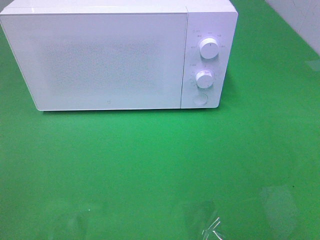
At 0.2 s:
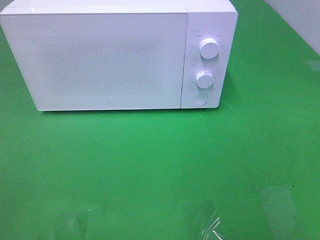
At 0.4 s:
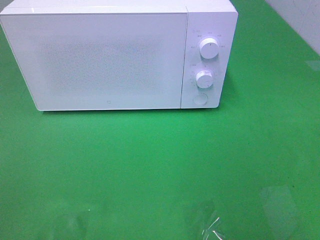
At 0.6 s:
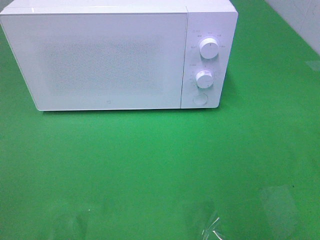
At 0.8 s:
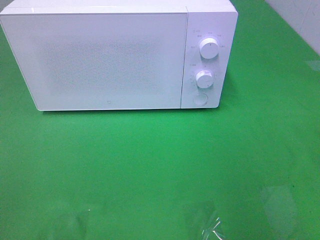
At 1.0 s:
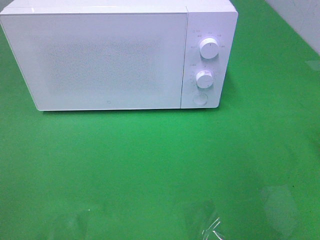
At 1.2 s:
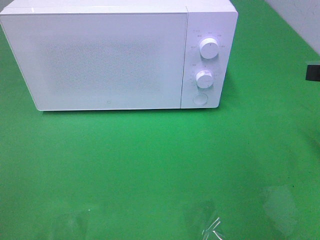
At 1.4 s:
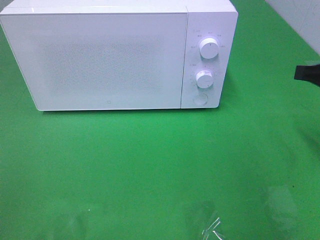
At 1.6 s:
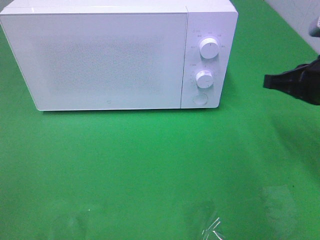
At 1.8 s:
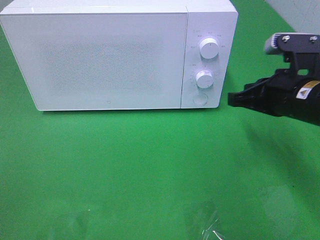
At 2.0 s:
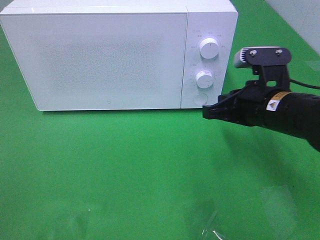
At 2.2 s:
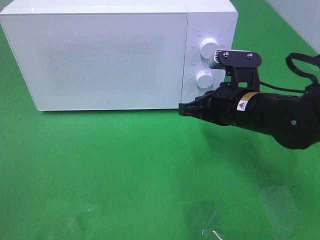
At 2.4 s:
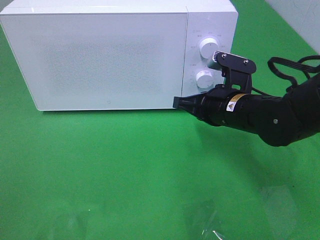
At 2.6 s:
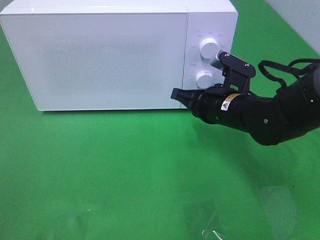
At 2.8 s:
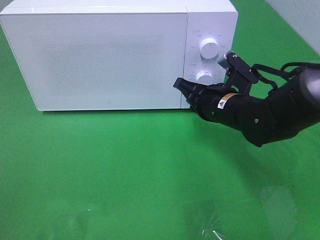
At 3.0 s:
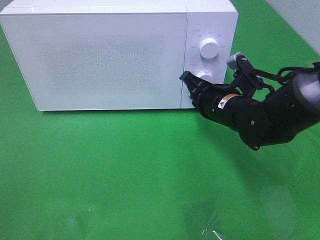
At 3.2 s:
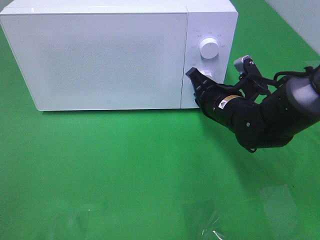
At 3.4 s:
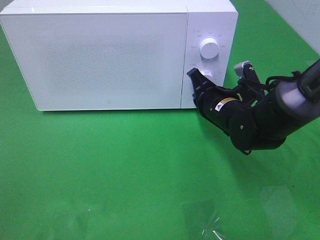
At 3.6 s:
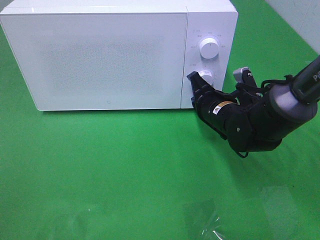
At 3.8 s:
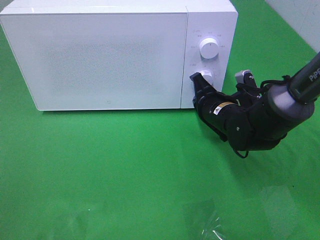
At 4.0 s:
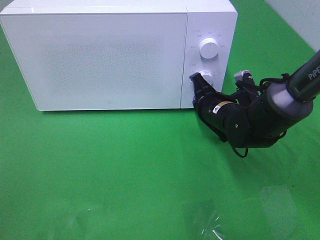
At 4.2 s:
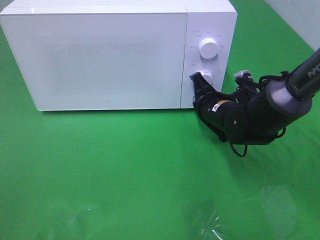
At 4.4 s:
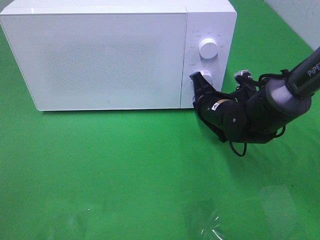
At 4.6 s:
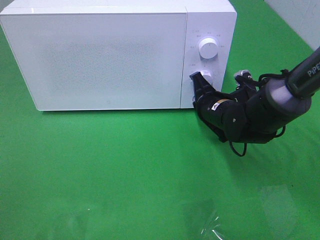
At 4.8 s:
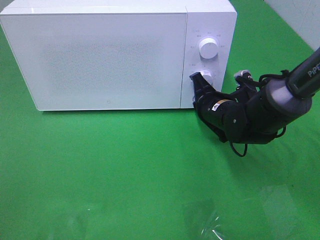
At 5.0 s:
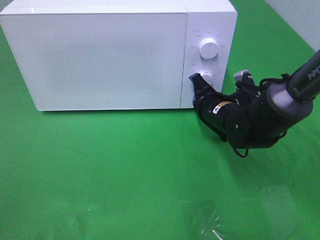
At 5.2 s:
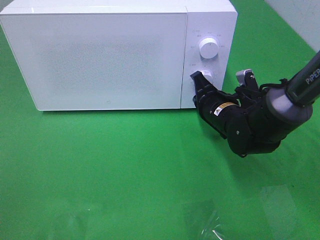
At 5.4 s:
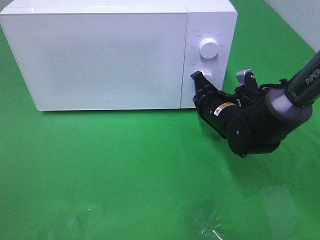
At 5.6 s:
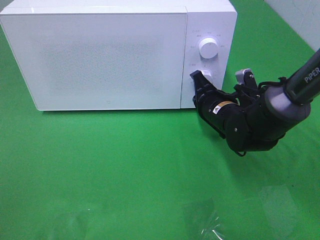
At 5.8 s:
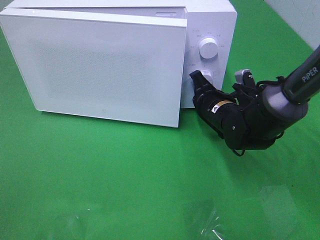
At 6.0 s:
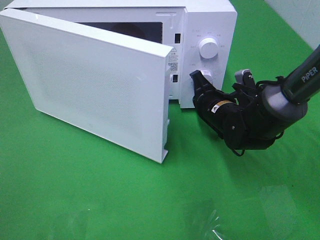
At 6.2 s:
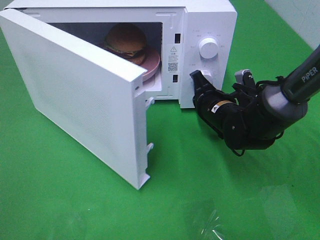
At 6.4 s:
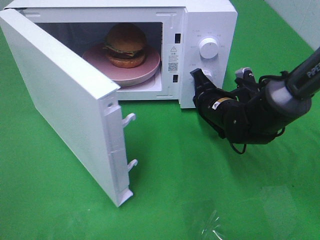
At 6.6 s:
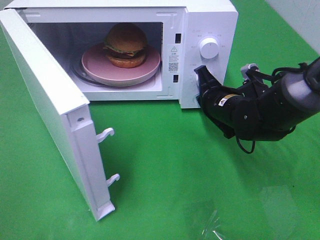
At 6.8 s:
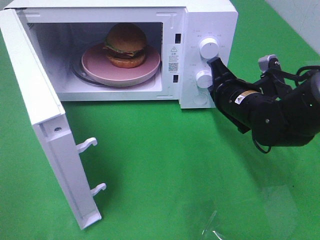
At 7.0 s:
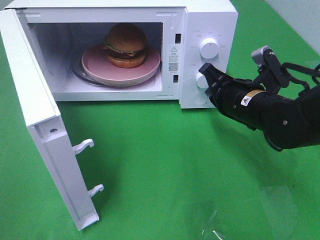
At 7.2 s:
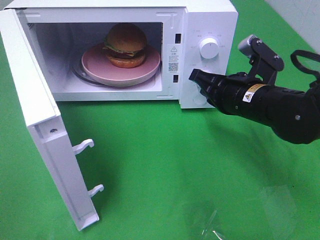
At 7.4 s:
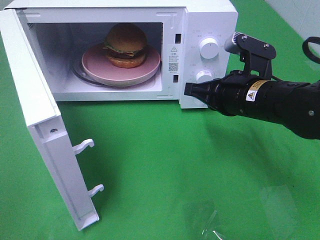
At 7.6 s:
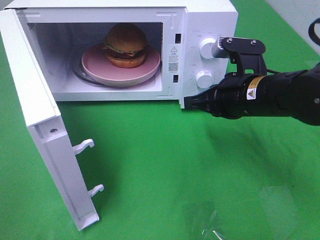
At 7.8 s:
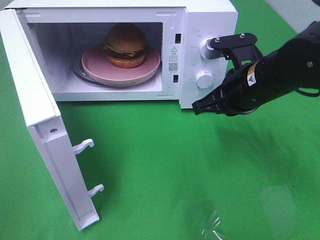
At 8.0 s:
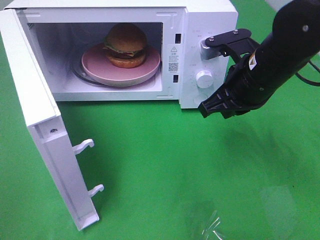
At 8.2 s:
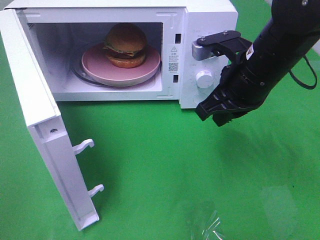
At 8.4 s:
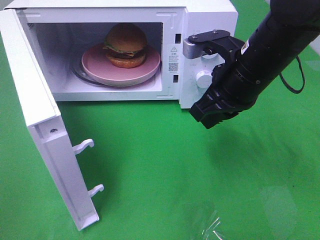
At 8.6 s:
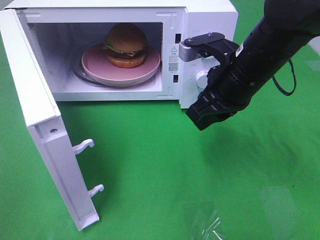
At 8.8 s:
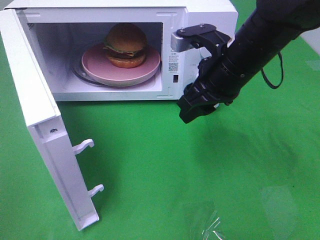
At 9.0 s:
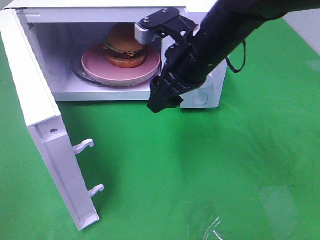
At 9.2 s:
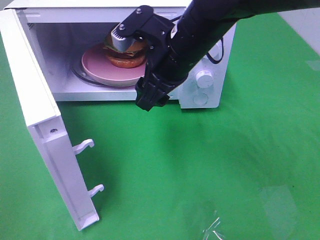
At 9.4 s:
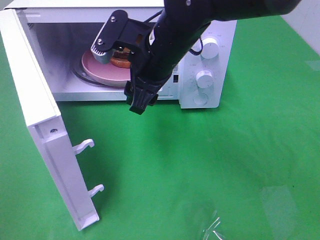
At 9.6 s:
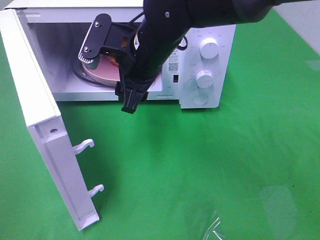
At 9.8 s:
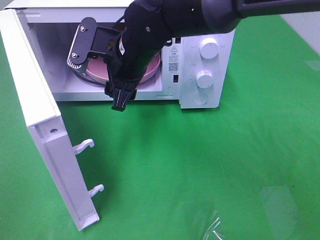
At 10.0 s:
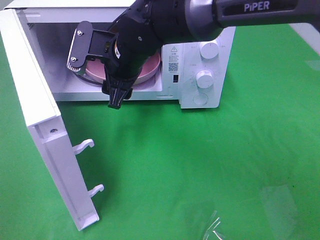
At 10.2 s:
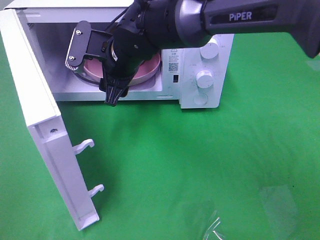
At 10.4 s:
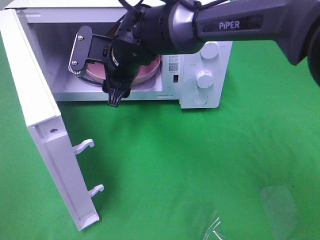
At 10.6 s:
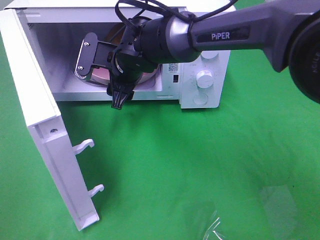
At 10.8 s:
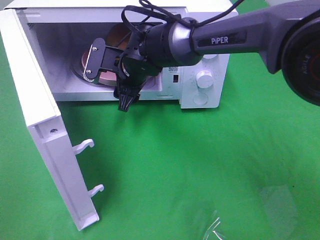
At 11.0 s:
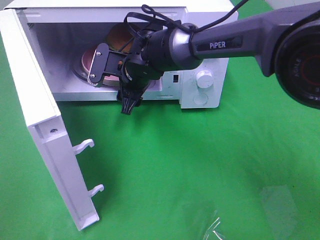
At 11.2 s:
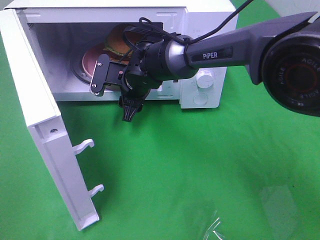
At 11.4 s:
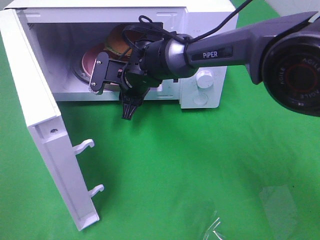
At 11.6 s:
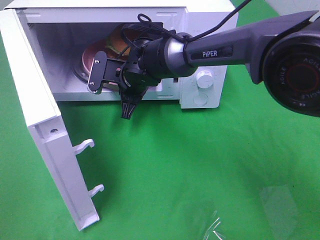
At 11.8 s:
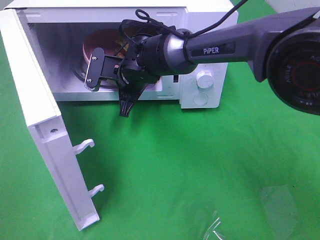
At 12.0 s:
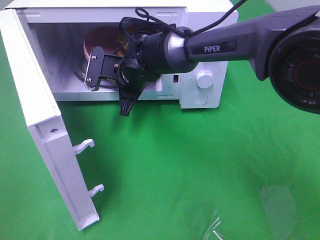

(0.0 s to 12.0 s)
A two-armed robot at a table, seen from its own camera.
Task of the whole recording: Heat the burger.
Step, 0.0 s - 7.4 s: Right hand: press the switch.
0.0 s - 1.6 s: The right gripper travels forward and downward by approximately 25 cm, and closes its fingers.
1.6 s - 3.0 s: The right gripper goes about 15 cm to the left, downward and forward.
4.4 s - 6.0 s: The grippers move only a little.
6.0 s - 7.6 s: The right gripper heads upward and backward, covering roughly 10 cm.
7.6 s - 9.0 s: The right gripper travels to the left and upward by about 10 cm, and opens.
9.0 s - 10.4 s: The right gripper shifts about 15 cm to the left, forward and downward.
10.4 s - 12.0 s: The right gripper changes place by approximately 5 cm, and closes.

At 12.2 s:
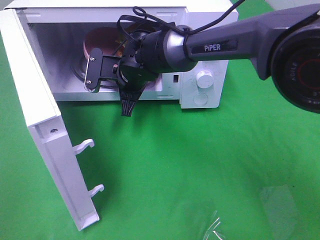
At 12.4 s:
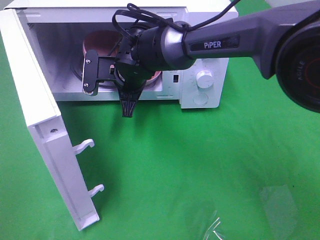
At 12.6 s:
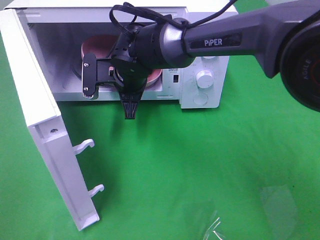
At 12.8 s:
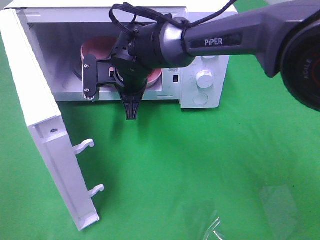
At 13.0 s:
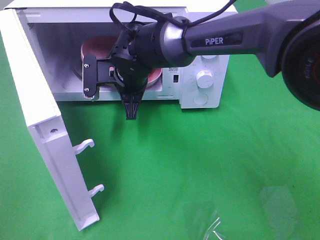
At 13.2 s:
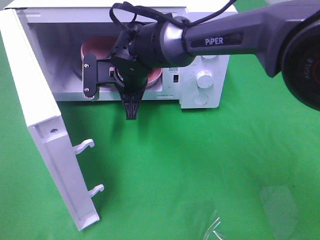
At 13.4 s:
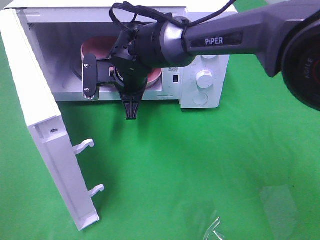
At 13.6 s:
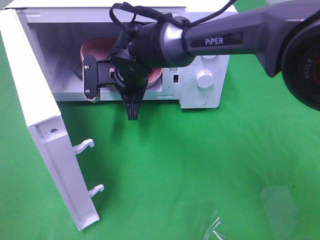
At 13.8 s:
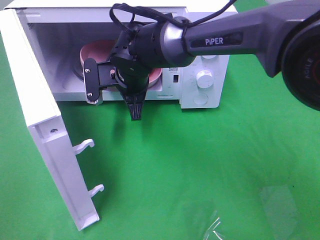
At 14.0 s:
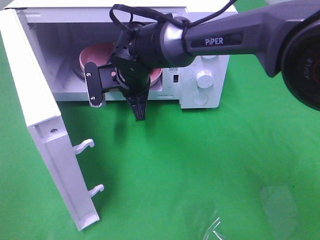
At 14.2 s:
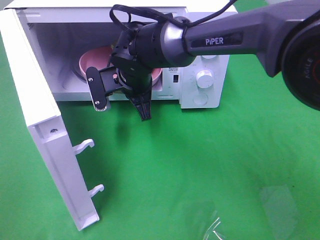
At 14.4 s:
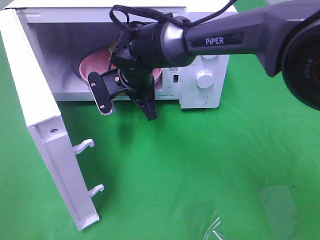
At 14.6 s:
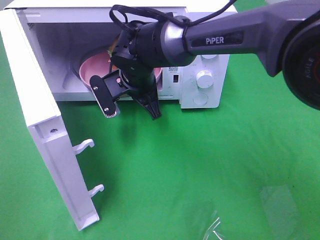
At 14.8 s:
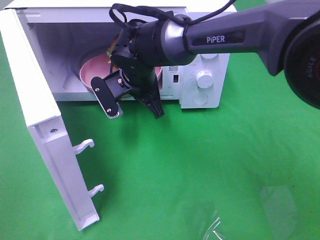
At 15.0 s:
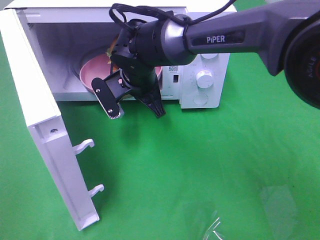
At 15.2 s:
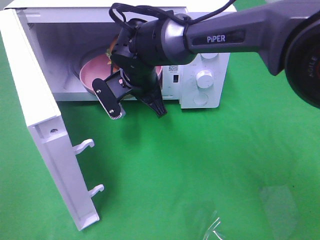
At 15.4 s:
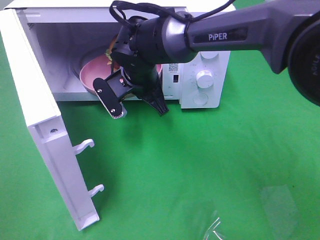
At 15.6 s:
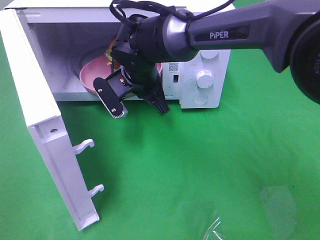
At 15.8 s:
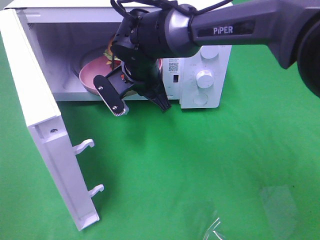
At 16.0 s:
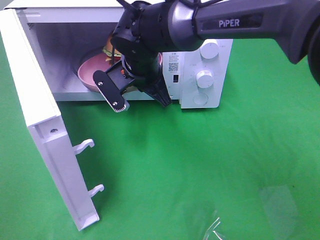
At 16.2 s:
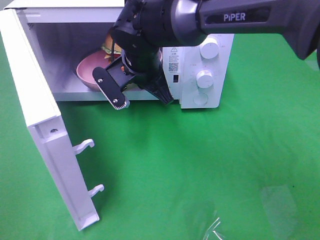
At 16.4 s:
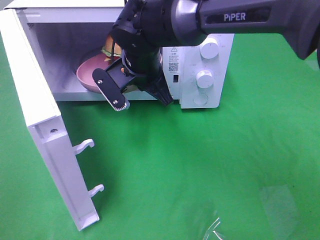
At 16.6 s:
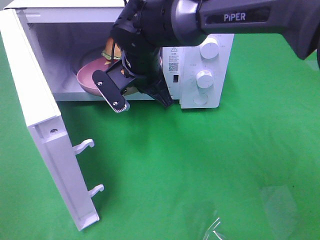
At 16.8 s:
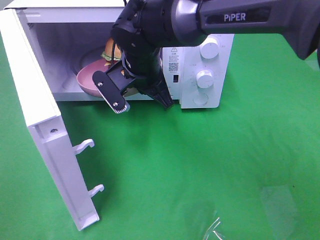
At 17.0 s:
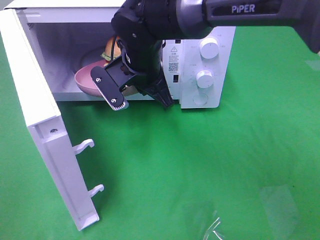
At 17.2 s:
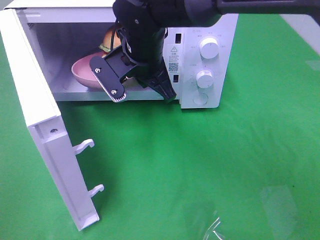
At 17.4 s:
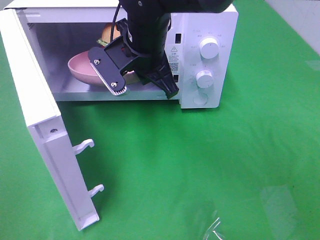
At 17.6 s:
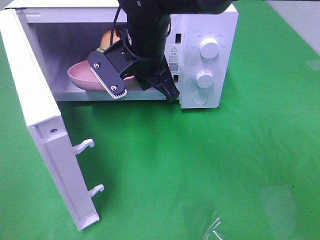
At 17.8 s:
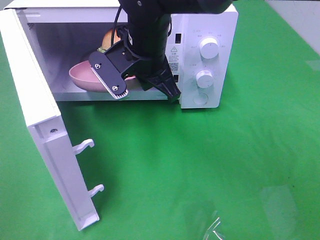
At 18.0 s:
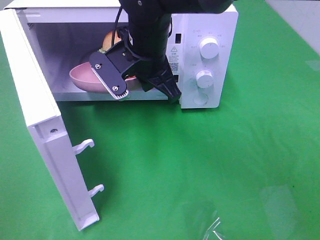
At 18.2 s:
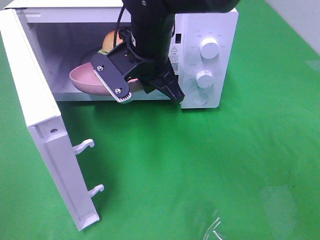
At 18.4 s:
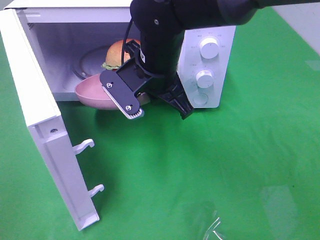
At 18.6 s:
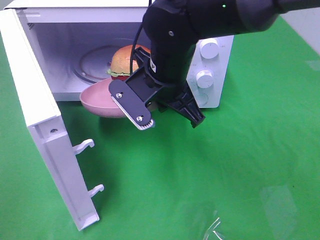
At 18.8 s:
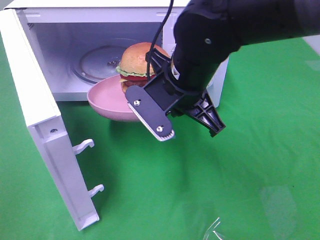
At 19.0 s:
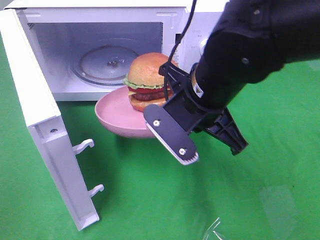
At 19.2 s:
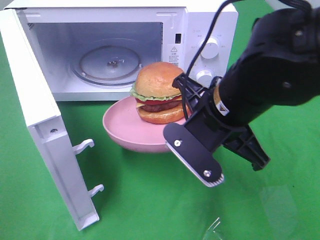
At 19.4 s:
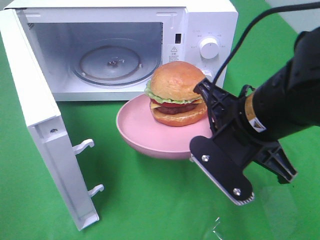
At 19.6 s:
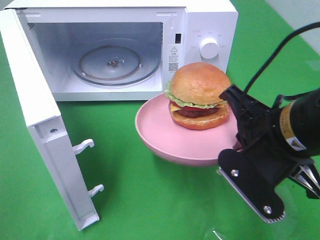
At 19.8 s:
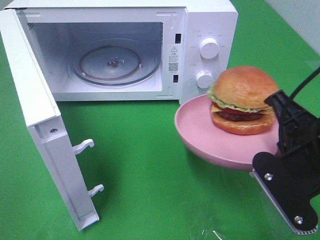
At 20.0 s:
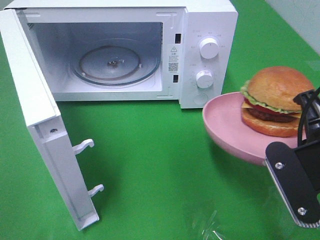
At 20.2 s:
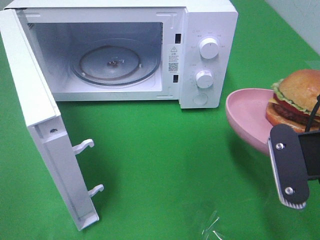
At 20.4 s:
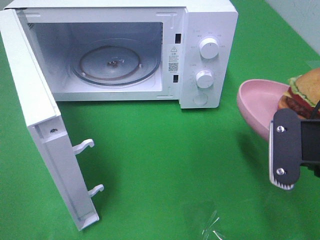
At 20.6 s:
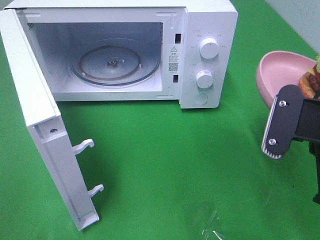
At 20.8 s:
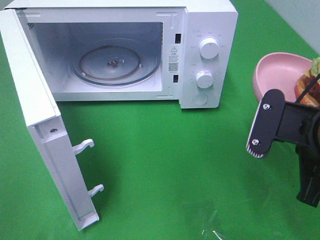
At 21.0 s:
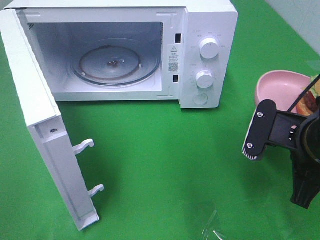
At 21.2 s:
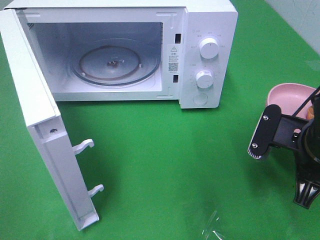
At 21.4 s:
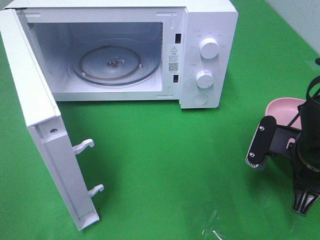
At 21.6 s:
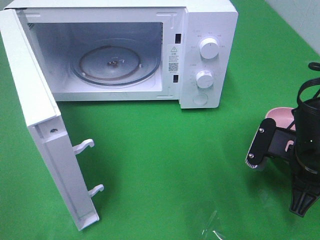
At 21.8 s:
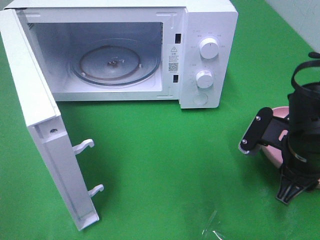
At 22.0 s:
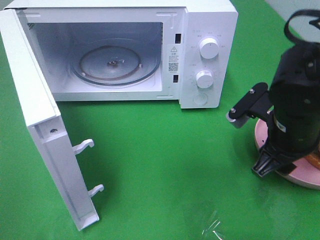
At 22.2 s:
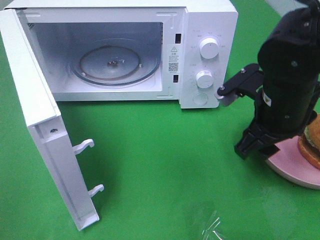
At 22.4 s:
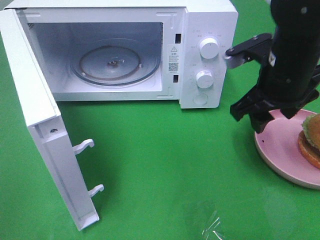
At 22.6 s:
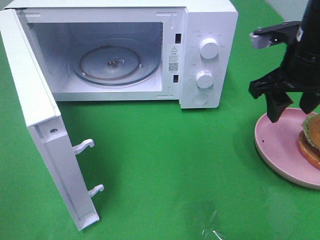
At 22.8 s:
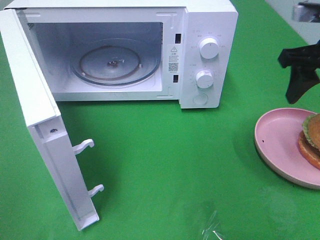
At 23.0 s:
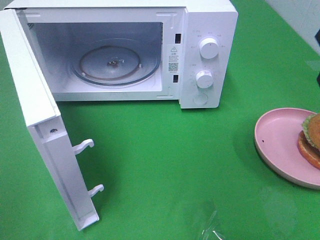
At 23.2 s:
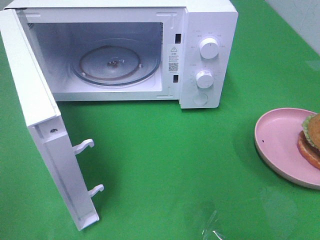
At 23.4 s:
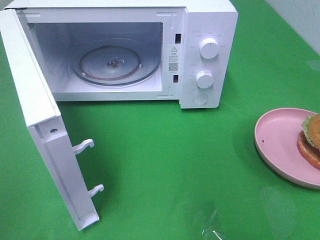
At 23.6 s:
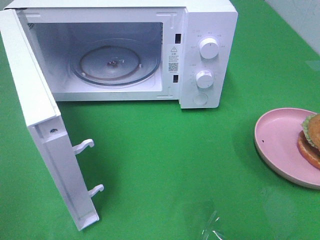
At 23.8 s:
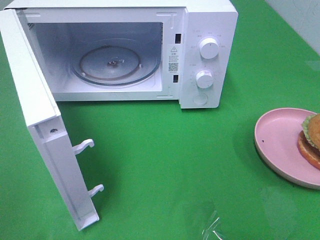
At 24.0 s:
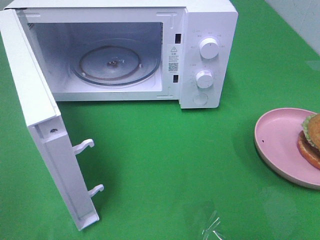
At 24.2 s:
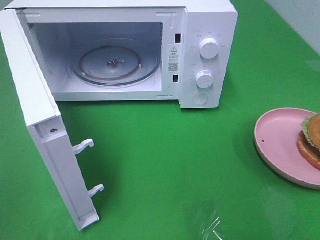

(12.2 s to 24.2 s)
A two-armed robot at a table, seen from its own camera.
Task of the whole recording: Heat the burger.
Step, 13.0 s - 22.2 s: Right hand: place the plate on the table.
12.2 s - 13.8 s: The grippers make only small movements.
15.2 s - 16.6 s: The grippers make only small movements.
16.6 s - 18.2 s: The right gripper ends up some 5 cm from where it was.
18.2 s - 19.8 s: The right gripper travels to the right and backward by some 25 cm.
19.8 s - 21.2 s: The right gripper goes roughly 5 cm downward.
21.2 s - 22.6 s: The right gripper travels forward and upward by about 15 cm, and opens.
22.6 s - 24.2 s: The right gripper moves backward, about 25 cm.
